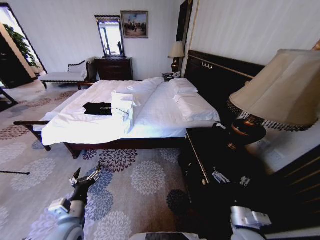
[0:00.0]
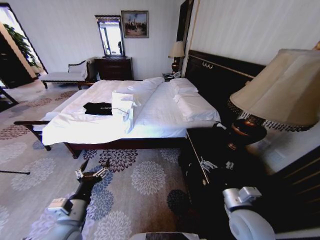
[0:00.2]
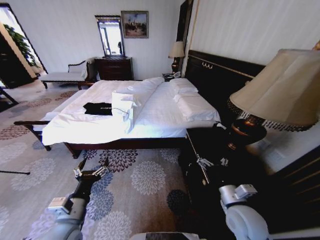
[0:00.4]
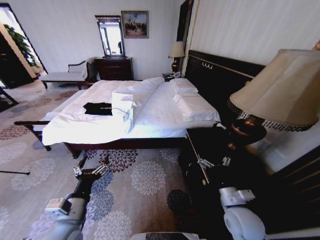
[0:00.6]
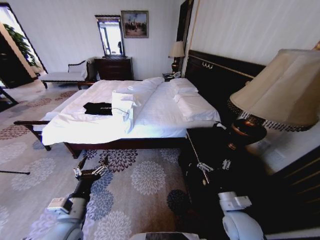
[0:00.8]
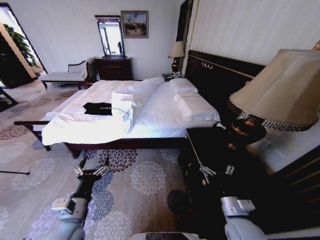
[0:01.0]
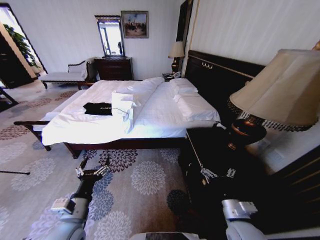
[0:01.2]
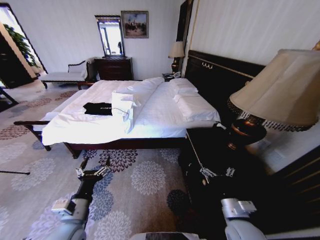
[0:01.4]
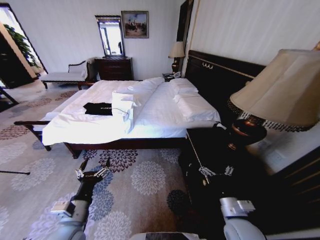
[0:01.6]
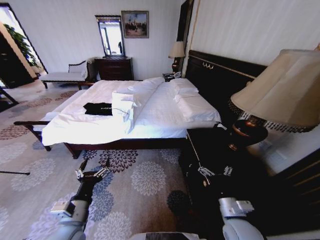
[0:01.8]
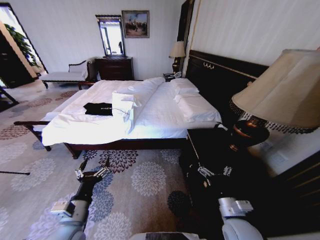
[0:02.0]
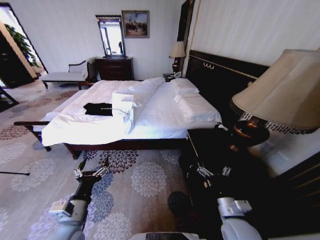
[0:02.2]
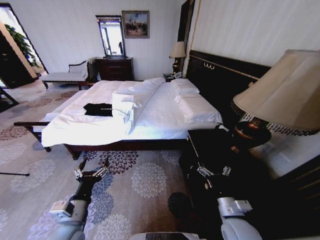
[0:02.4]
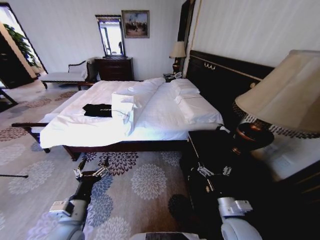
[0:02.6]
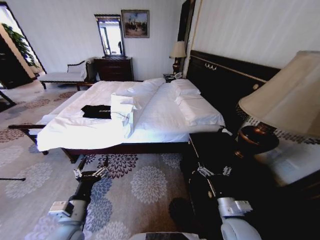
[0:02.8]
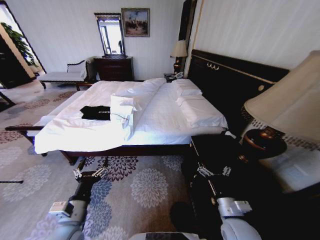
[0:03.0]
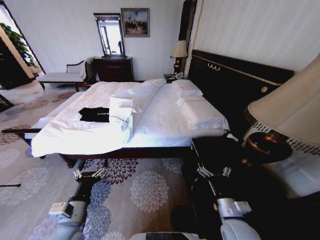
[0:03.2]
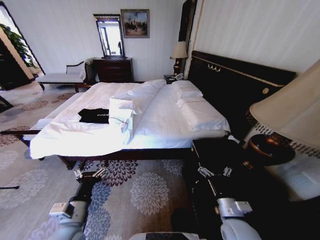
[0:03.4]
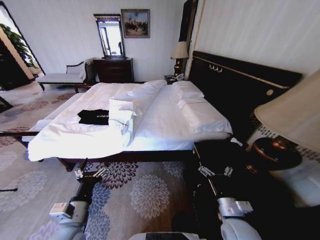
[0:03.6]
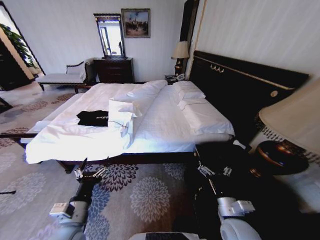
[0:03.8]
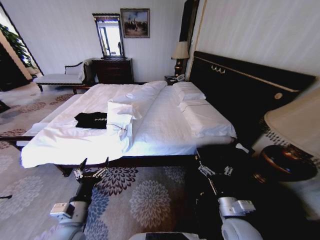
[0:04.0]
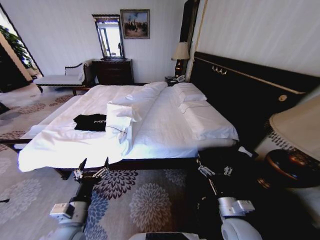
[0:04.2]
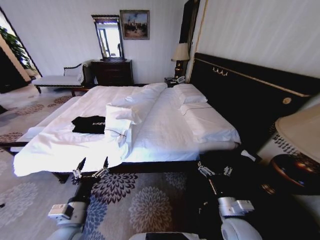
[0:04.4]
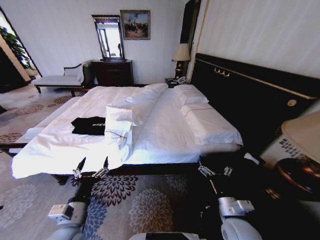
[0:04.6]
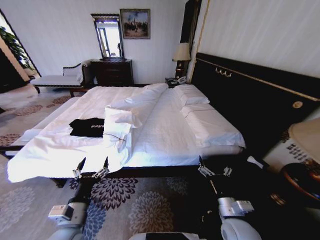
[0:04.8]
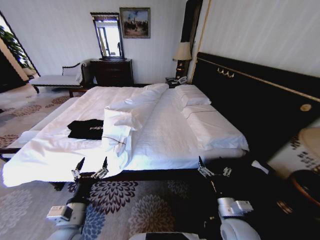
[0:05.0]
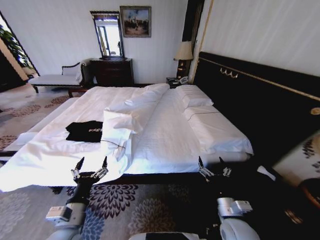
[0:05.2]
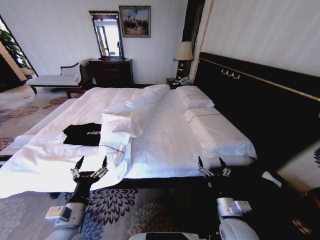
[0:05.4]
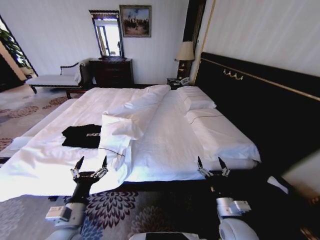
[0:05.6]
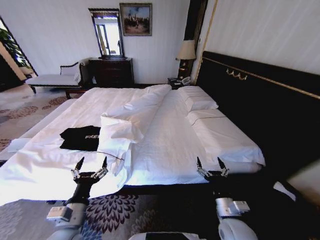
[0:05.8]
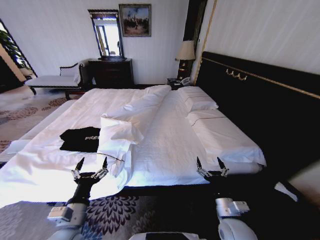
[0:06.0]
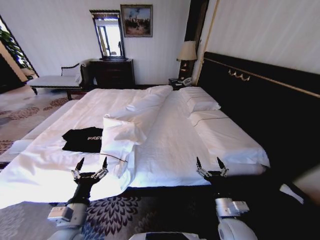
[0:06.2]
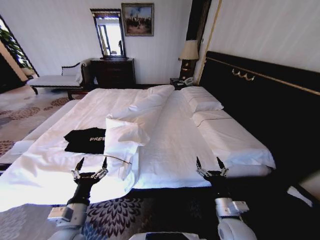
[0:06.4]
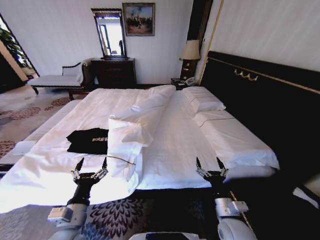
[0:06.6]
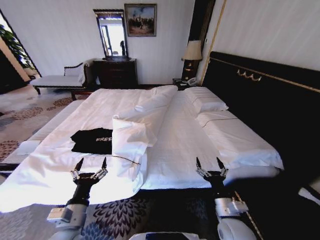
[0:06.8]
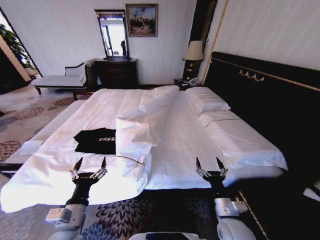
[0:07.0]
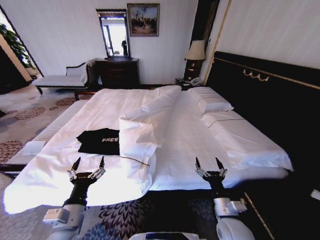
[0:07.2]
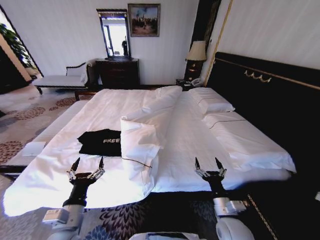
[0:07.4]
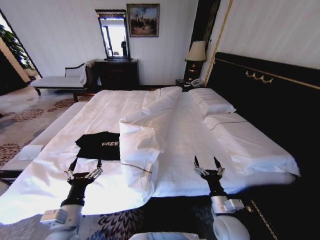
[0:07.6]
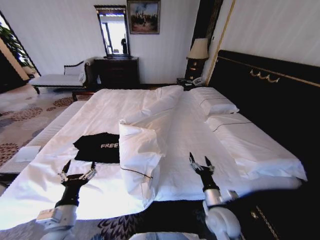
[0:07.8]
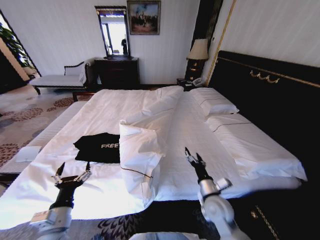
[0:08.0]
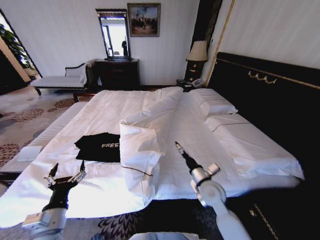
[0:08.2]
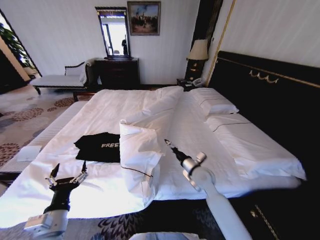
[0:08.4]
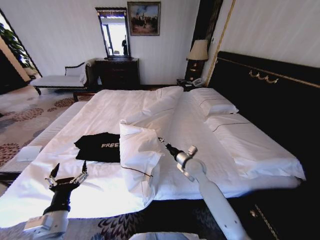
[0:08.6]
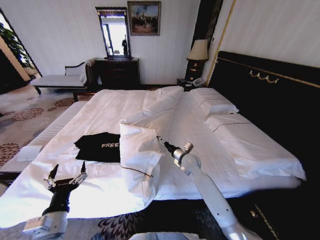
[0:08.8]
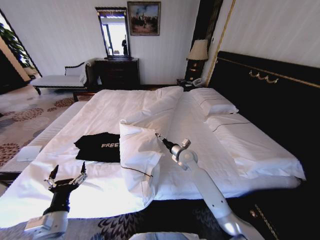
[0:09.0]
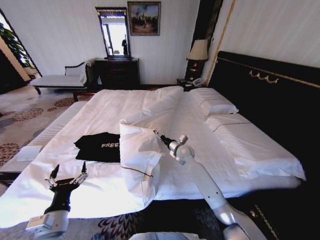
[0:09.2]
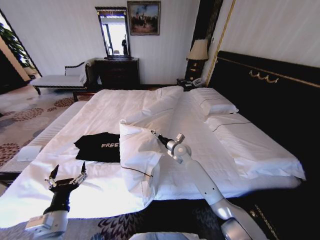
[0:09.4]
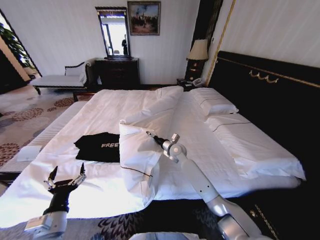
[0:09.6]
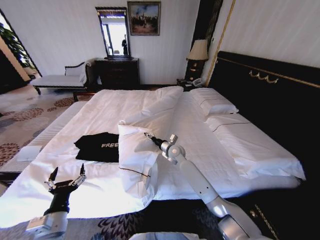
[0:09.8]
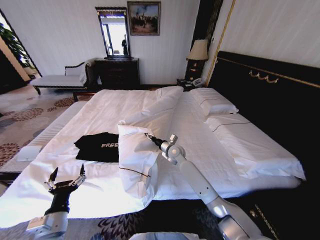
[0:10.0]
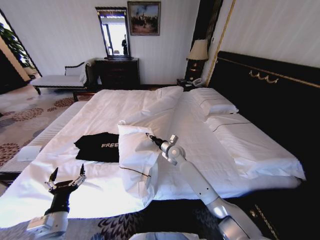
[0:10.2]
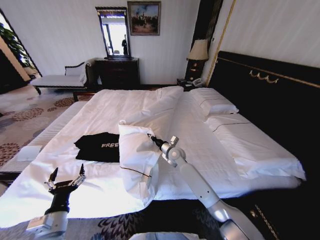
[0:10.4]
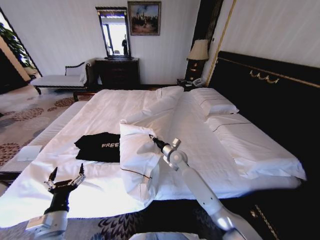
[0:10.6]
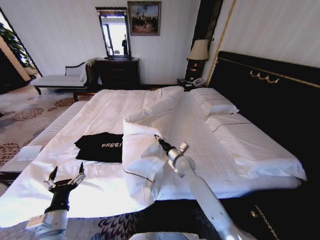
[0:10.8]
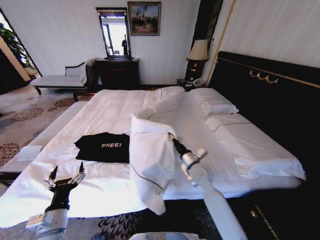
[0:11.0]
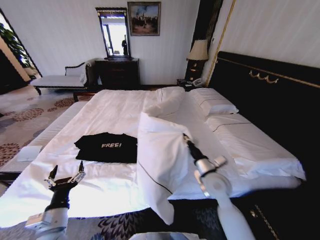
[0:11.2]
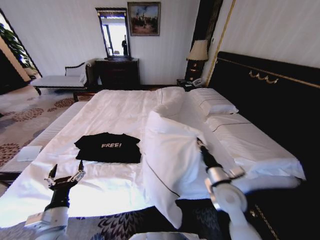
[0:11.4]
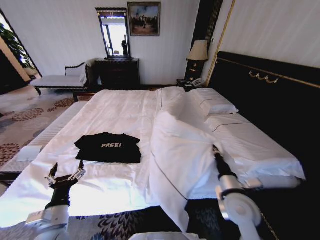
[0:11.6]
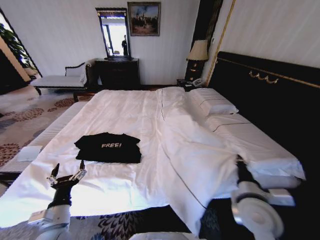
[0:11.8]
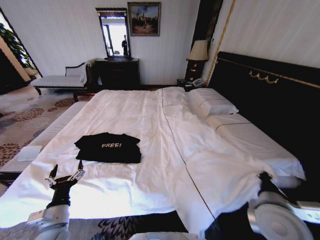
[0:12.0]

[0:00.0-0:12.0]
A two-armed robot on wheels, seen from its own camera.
Task of the whole recording: Fold the clothes on the bed.
0:07.6 to 0:09.0: The right gripper travels forward by roughly 25 cm.
0:09.0 to 0:10.4: The right gripper heads to the left, covering some 5 cm, and closes its fingers.
0:10.4 to 0:12.0: The right gripper travels backward, to the right and upward by roughly 40 cm.

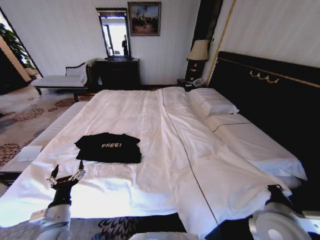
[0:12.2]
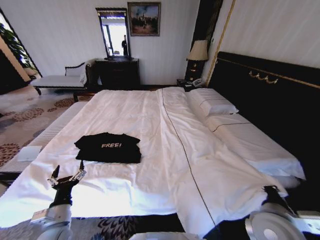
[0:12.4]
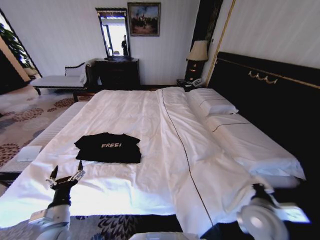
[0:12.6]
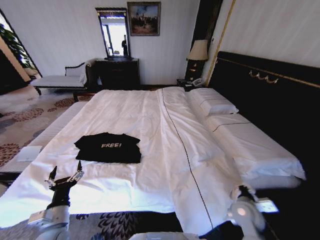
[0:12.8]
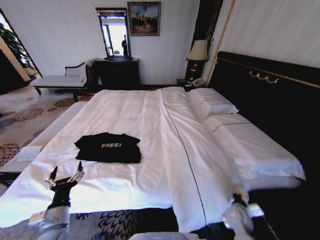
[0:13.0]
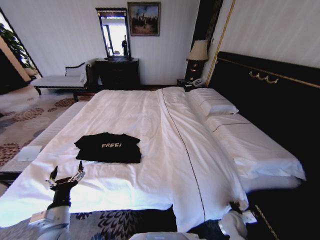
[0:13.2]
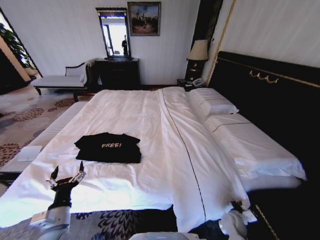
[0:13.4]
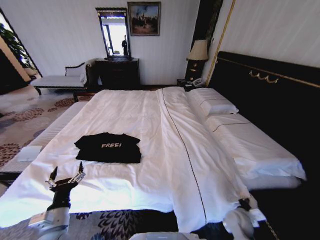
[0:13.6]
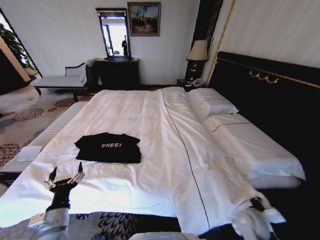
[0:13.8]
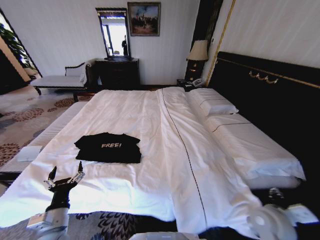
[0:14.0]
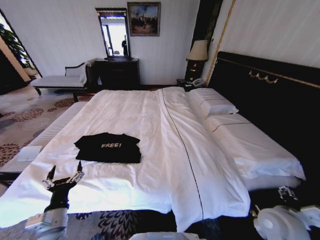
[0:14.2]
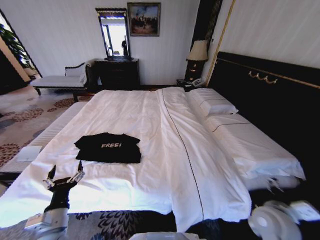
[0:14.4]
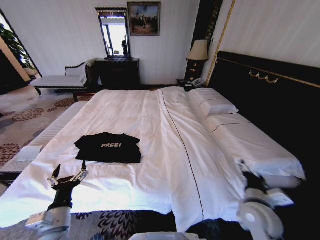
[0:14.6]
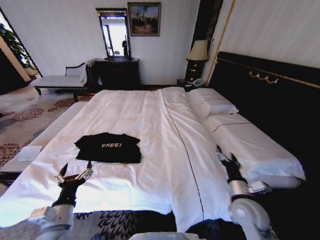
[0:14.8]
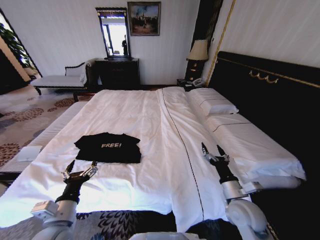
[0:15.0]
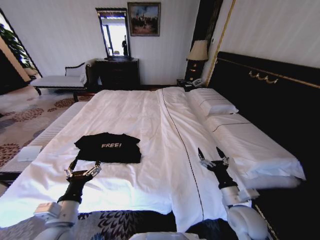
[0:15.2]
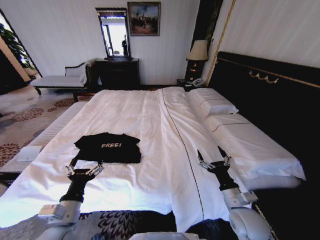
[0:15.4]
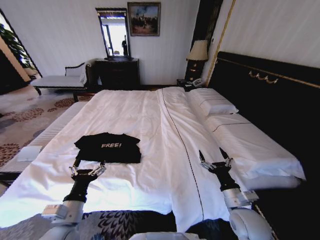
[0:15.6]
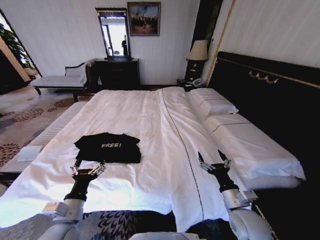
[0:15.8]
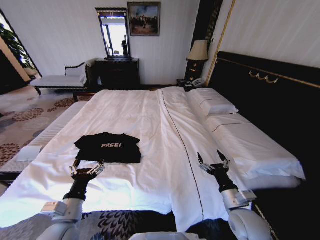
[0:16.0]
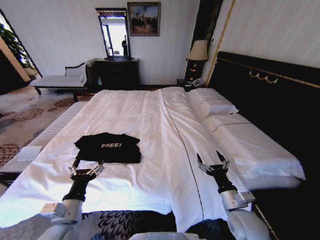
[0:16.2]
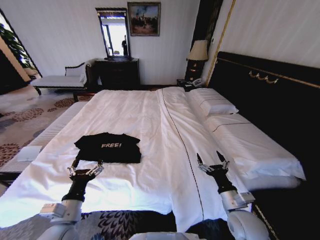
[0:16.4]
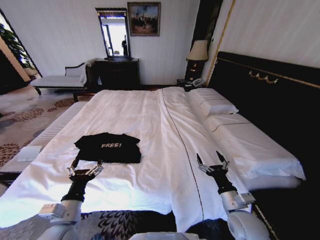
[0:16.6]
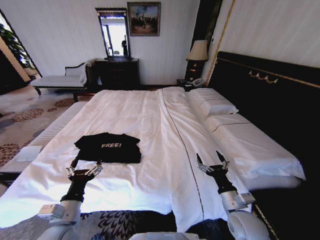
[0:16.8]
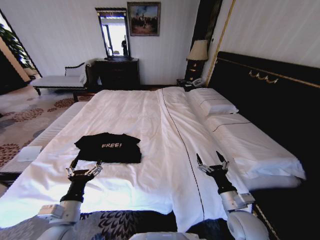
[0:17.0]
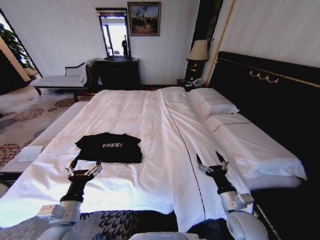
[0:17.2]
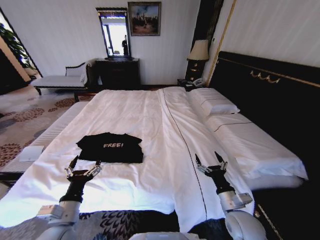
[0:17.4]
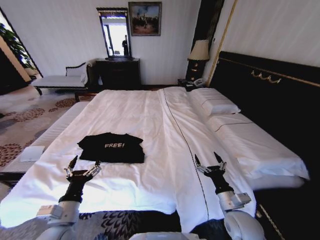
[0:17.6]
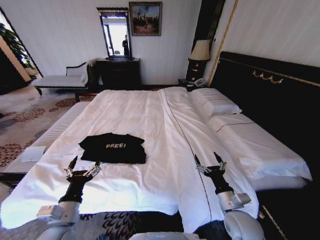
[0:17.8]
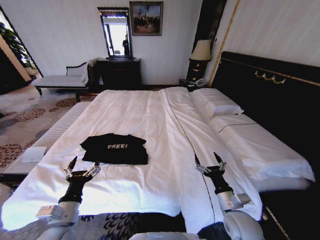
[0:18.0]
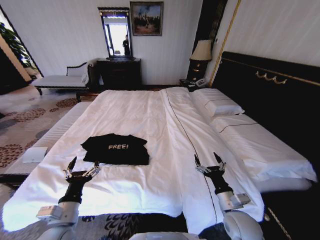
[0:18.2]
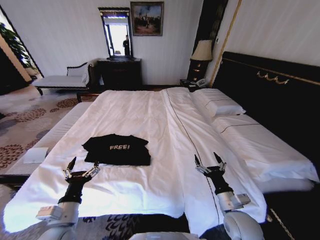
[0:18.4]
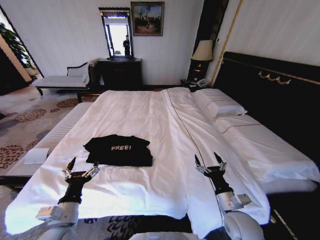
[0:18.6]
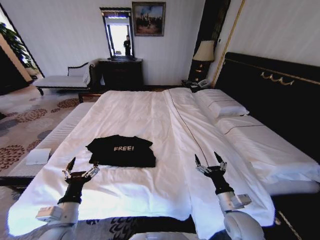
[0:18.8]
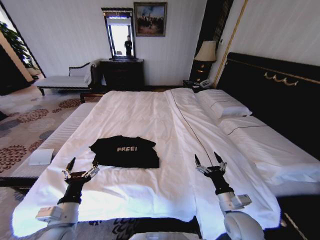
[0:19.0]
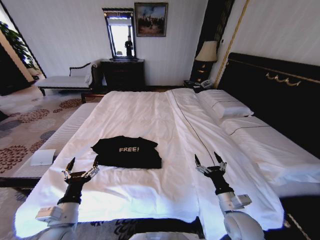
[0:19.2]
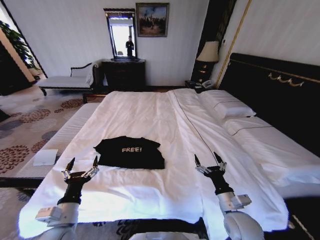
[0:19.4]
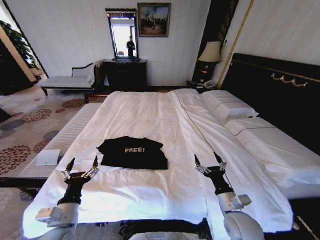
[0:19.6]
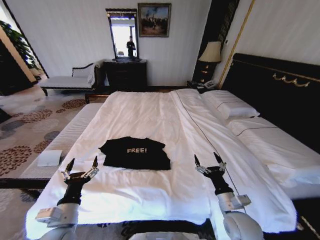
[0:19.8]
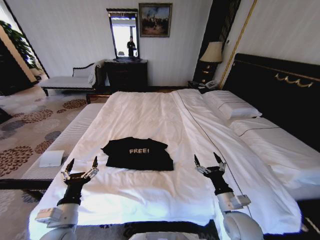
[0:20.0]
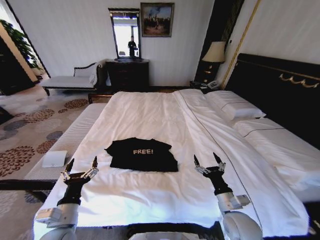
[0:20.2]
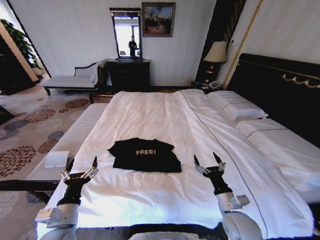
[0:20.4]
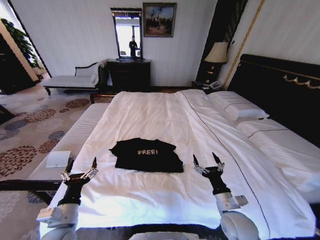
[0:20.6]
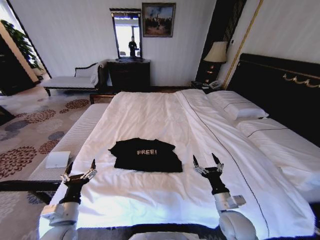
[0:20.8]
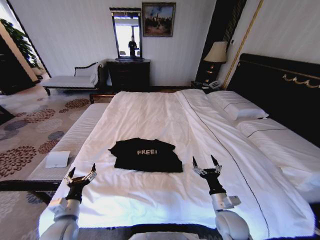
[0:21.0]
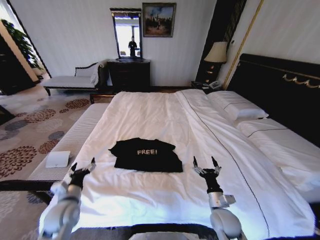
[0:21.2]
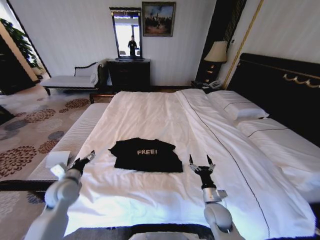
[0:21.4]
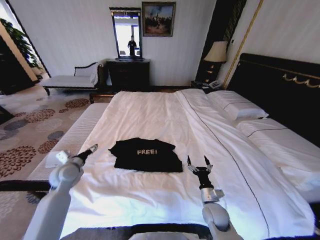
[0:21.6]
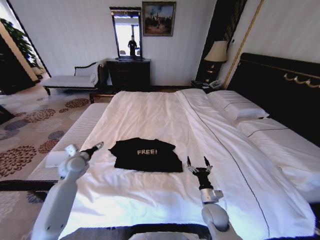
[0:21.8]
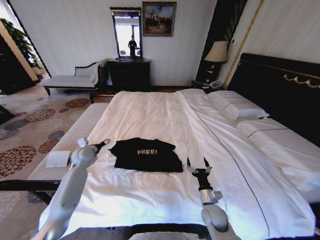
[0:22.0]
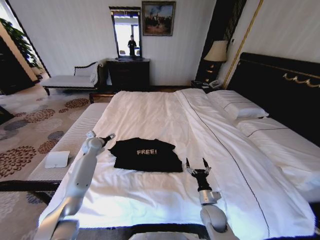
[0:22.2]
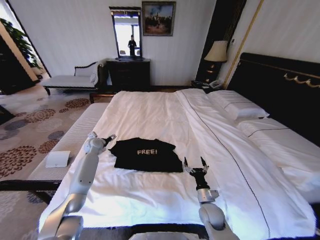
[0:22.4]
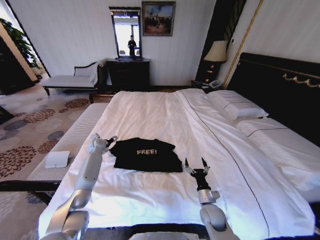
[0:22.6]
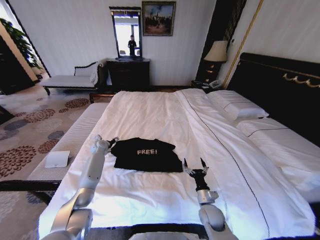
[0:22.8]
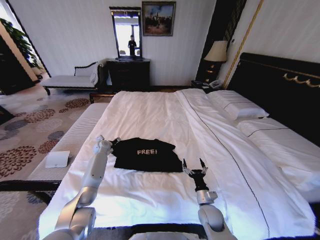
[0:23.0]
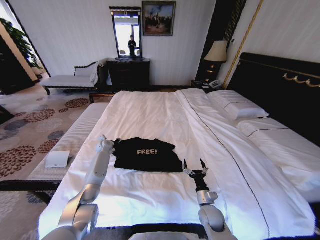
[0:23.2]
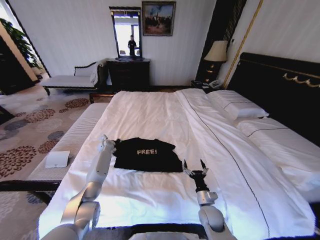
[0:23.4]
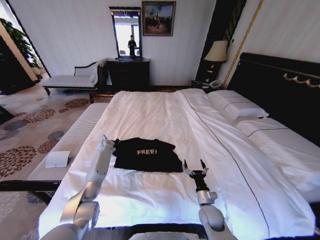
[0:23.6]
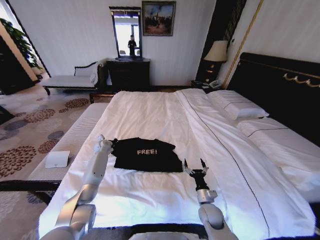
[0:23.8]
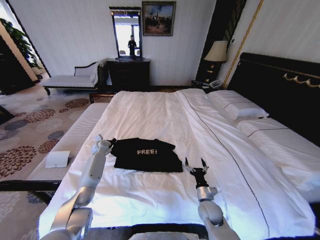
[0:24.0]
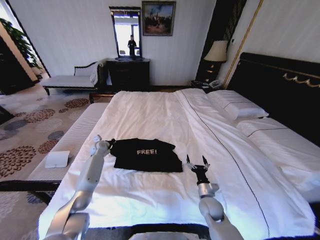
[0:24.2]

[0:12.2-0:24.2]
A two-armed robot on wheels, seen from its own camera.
Task of the whole recording: Fold the clothes on the bed.
0:12.2 to 0:13.8: The right gripper travels downward by approximately 15 cm, and opens its fingers.
0:13.8 to 0:15.2: The left gripper shifts some 5 cm upward; the right gripper shifts roughly 10 cm upward and to the left, and opens its fingers.
0:15.2 to 0:16.6: The grippers make only small movements.
0:19.8 to 0:21.2: The right gripper shifts roughly 5 cm downward. The left gripper goes roughly 10 cm forward.
0:21.2 to 0:22.6: The right gripper shifts by some 5 cm. Meanwhile the left gripper moves forward, about 30 cm.
0:22.6 to 0:24.2: The left gripper closes up.
